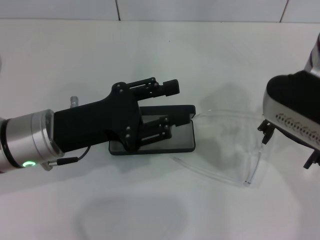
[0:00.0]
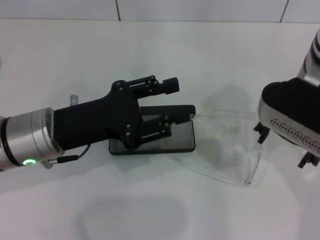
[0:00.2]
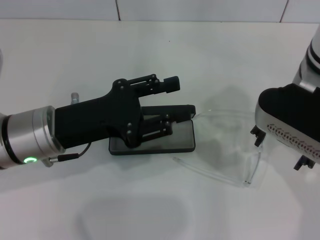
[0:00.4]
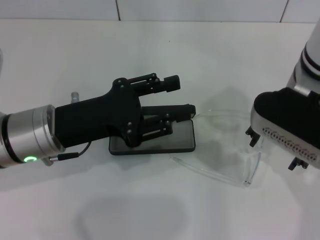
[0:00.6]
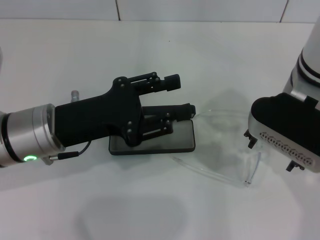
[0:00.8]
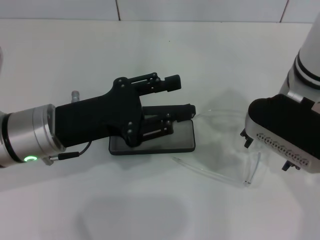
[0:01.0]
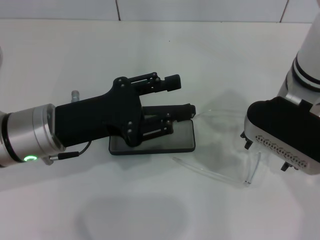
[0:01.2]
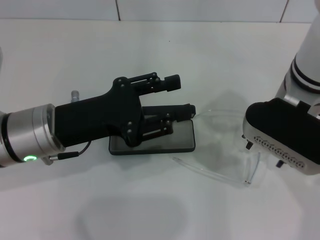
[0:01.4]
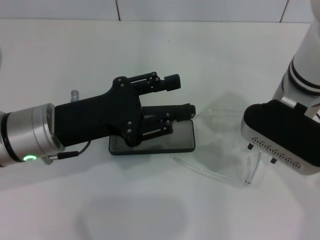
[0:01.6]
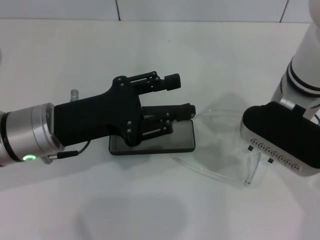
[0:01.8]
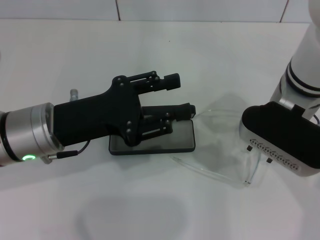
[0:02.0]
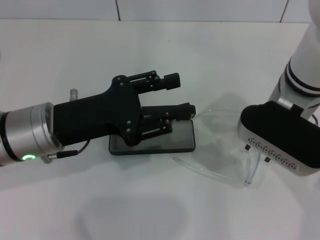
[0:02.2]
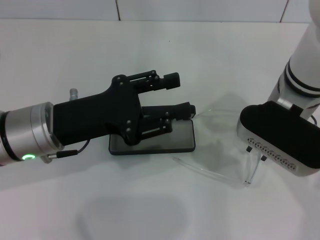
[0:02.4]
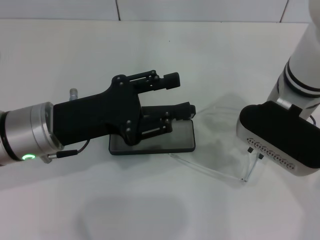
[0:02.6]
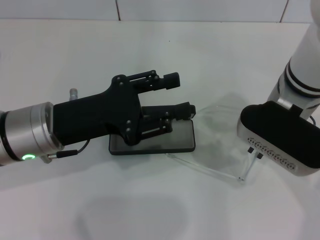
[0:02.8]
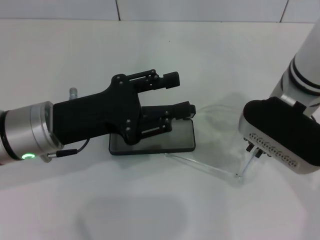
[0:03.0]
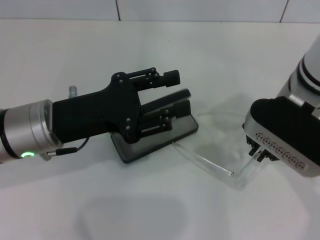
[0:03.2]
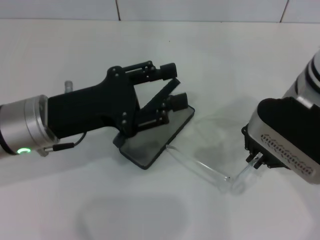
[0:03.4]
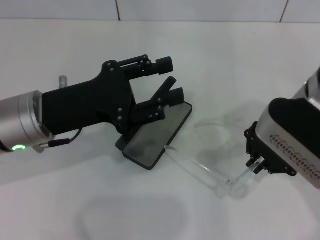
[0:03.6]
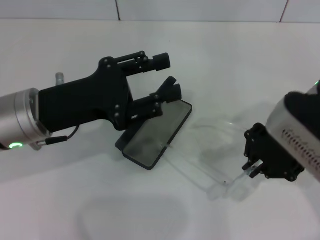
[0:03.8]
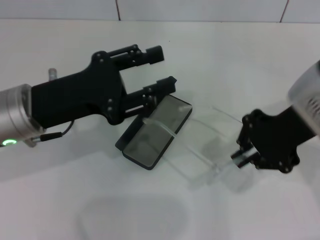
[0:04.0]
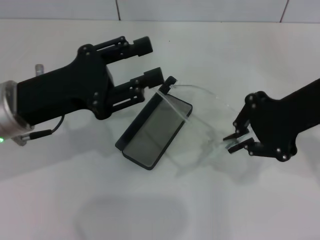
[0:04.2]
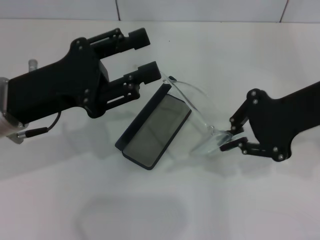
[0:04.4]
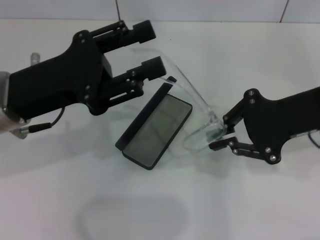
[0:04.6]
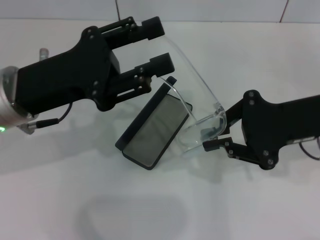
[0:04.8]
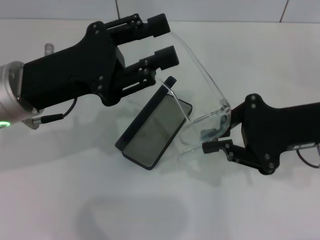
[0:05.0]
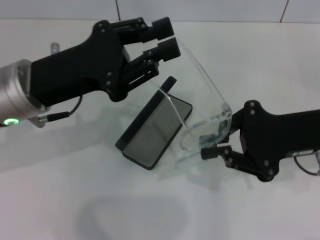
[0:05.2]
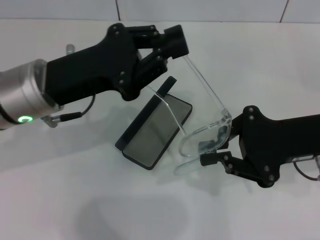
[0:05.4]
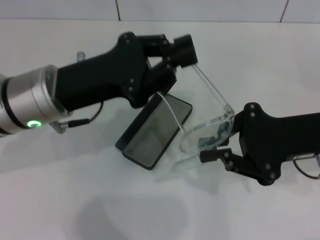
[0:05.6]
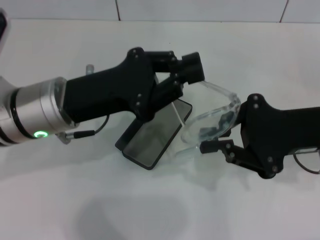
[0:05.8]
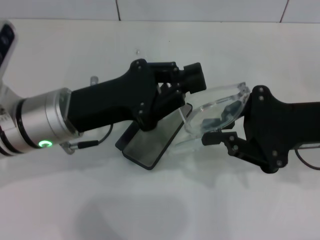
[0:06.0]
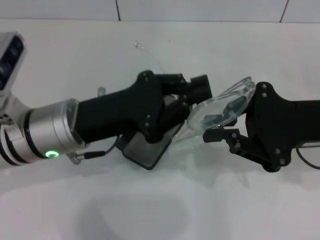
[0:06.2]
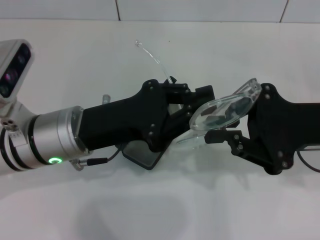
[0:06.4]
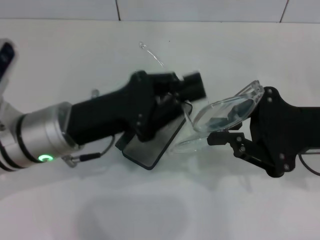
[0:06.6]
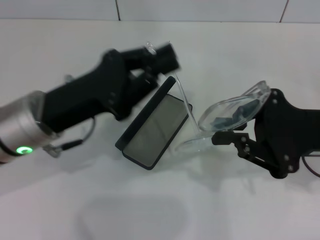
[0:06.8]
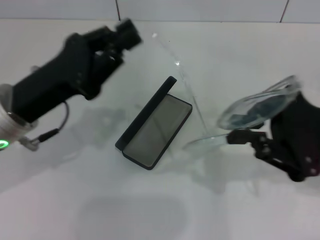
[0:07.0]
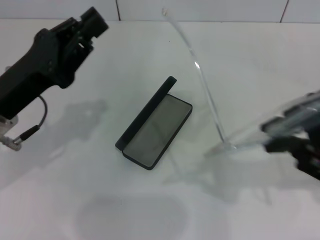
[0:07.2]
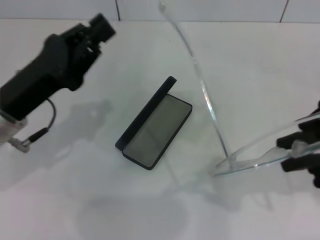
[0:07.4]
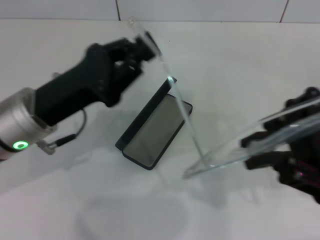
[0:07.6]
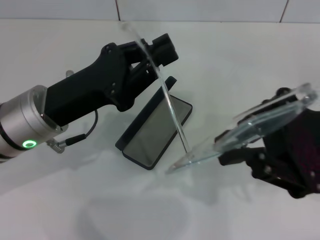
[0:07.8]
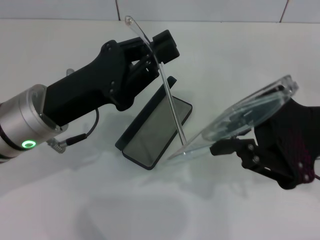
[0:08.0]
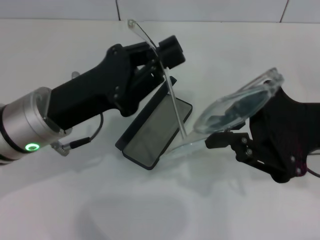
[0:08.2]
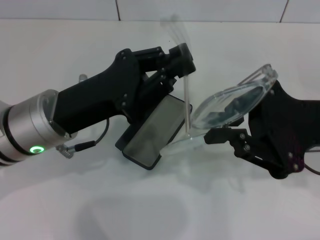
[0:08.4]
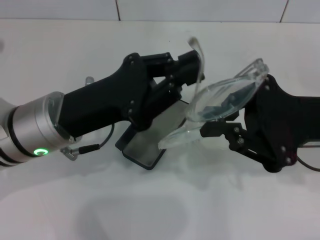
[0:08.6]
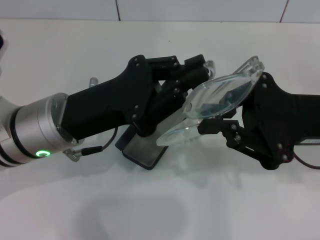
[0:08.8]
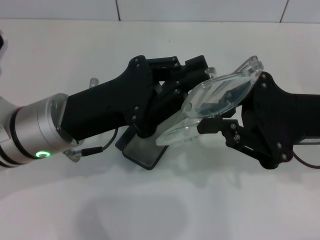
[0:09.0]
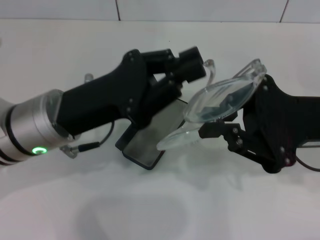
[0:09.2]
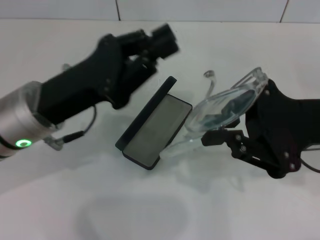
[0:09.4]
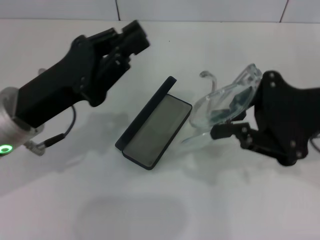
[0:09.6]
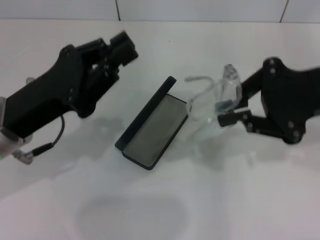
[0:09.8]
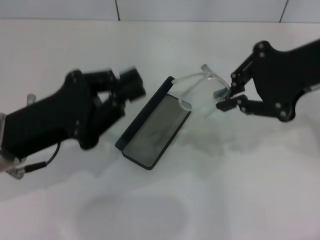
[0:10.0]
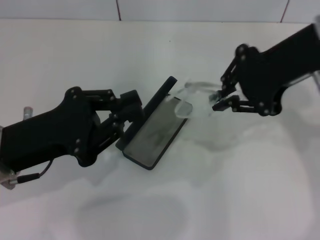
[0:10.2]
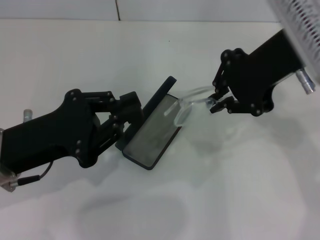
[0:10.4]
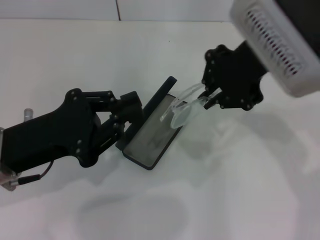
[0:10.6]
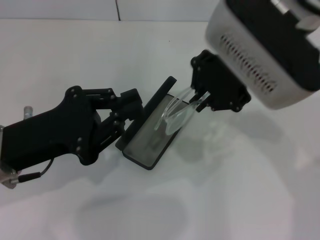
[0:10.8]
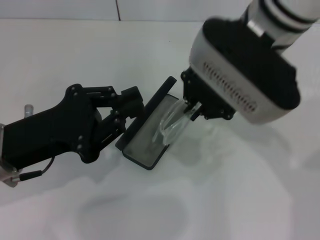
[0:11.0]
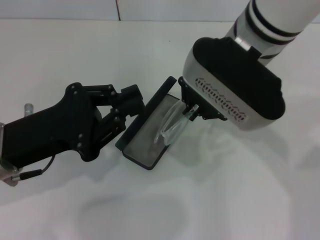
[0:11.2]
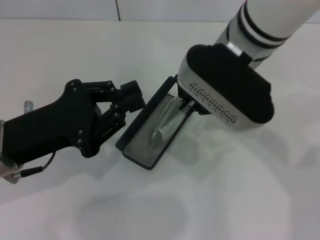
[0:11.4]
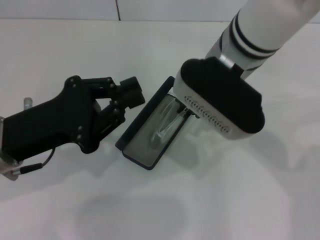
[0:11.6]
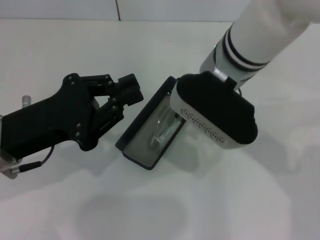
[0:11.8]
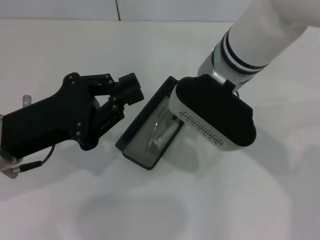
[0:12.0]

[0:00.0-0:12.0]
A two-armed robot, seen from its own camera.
Step, 0:00.0 to 0:02.6: Grab the eyeglass frame with your right hand.
Step, 0:02.8 to 0:09.0: Fold the frame with your left hand.
0:00.0 to 0:01.6: The right gripper moves about 5 cm.
0:01.6 to 0:03.0: The right gripper closes its fingers.
0:03.0 to 0:04.4: The right gripper shifts some 10 cm to the right.
0:04.4 to 0:06.0: The left gripper heads to the right, covering roughly 5 cm, and closes. The right gripper travels downward by approximately 5 cm.
0:09.0 to 0:10.4: The right gripper is displaced upward, to the left and forward by about 15 cm, while the left gripper is displaced to the left by approximately 5 cm.
0:10.4 to 0:12.0: The right gripper goes some 10 cm to the left and downward.

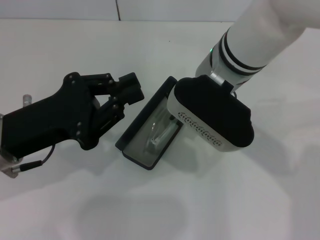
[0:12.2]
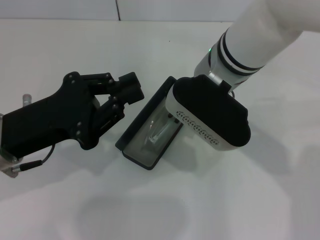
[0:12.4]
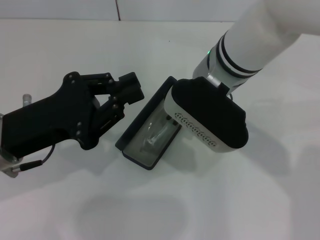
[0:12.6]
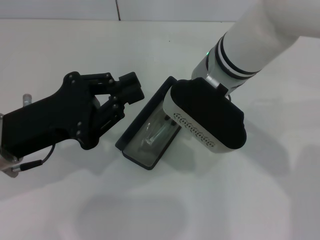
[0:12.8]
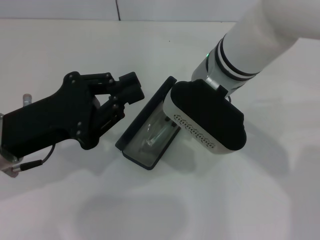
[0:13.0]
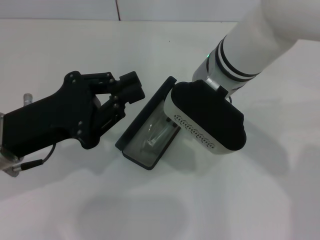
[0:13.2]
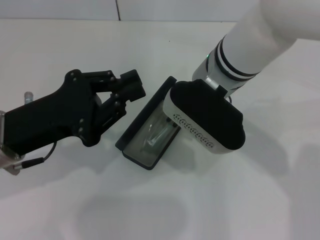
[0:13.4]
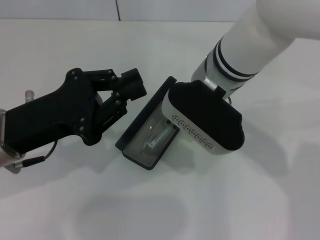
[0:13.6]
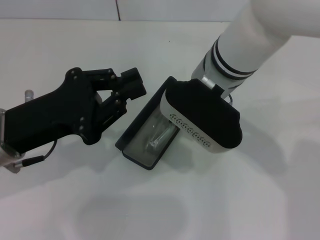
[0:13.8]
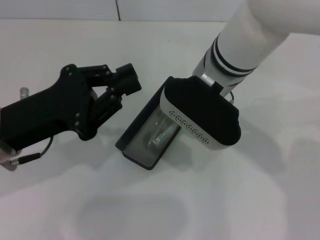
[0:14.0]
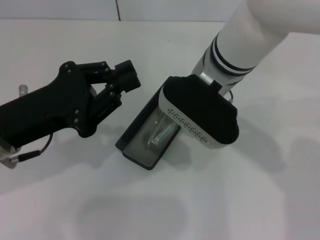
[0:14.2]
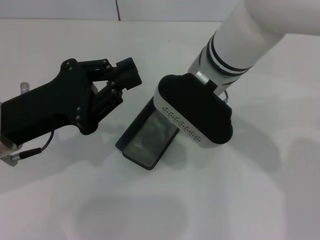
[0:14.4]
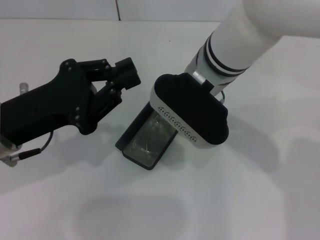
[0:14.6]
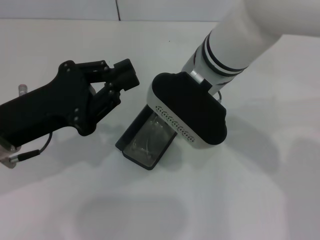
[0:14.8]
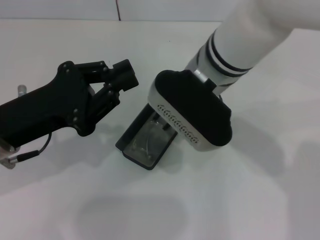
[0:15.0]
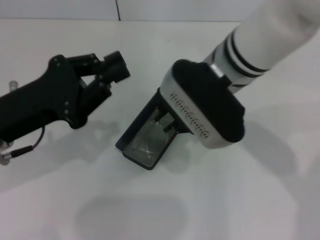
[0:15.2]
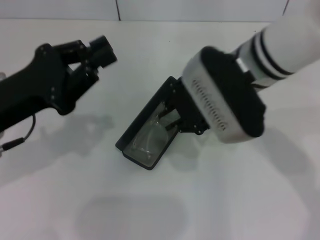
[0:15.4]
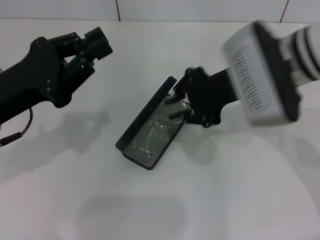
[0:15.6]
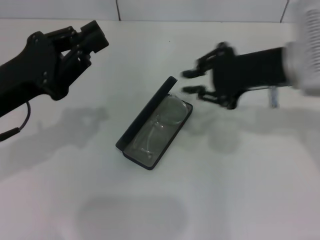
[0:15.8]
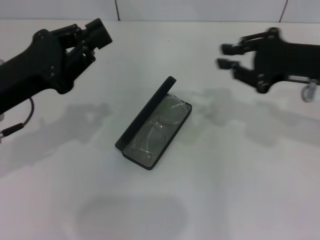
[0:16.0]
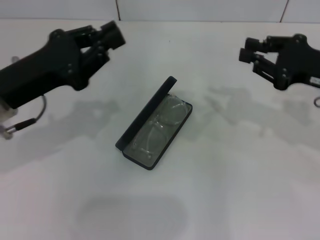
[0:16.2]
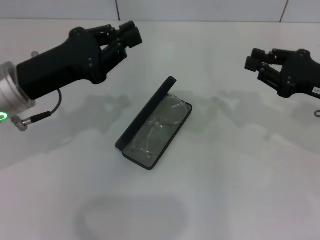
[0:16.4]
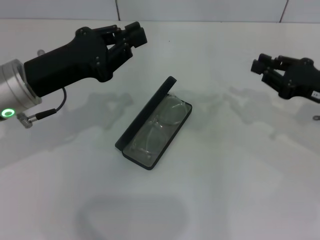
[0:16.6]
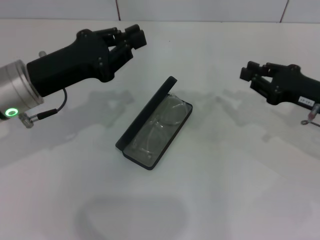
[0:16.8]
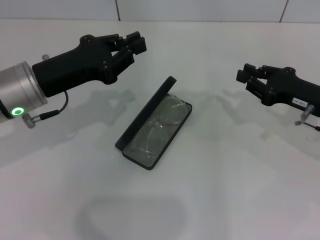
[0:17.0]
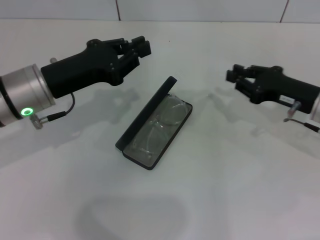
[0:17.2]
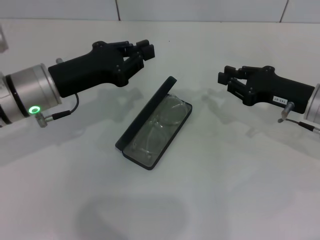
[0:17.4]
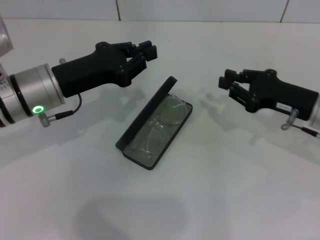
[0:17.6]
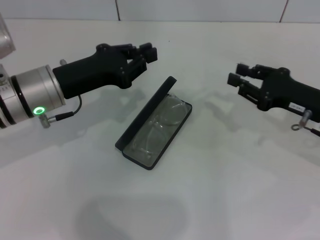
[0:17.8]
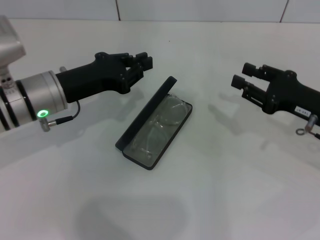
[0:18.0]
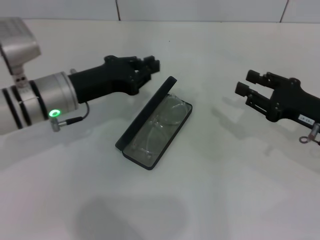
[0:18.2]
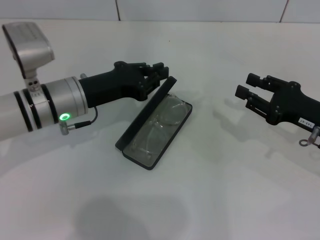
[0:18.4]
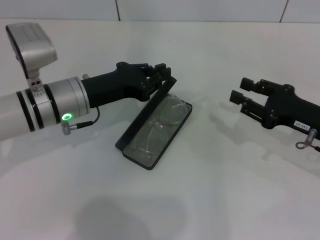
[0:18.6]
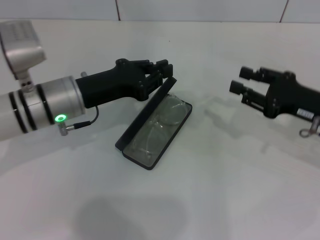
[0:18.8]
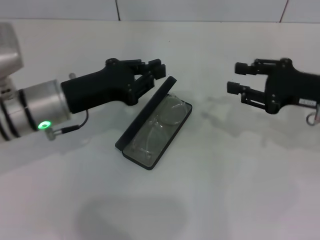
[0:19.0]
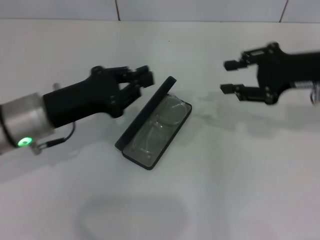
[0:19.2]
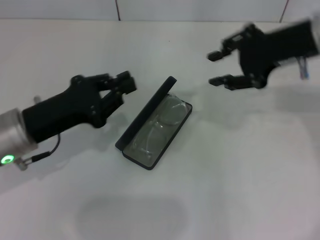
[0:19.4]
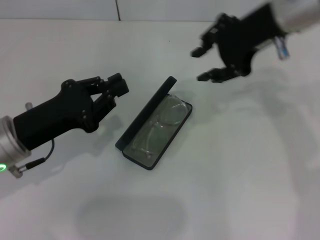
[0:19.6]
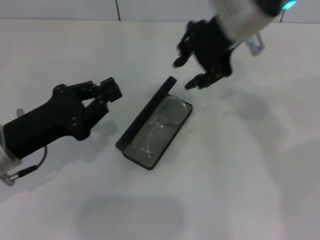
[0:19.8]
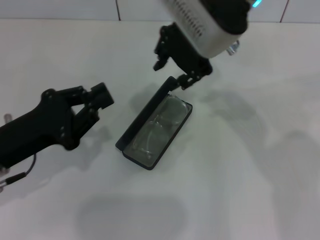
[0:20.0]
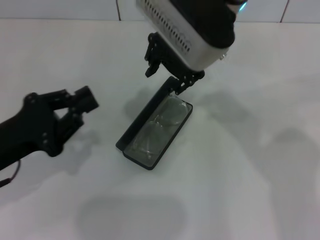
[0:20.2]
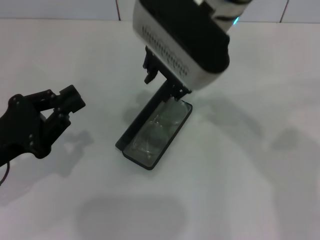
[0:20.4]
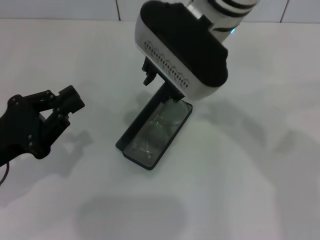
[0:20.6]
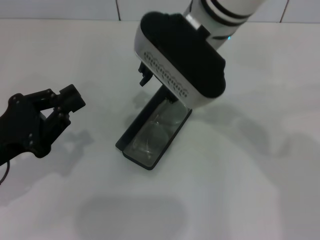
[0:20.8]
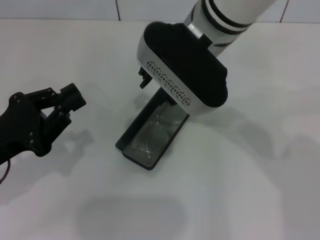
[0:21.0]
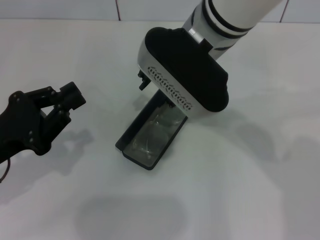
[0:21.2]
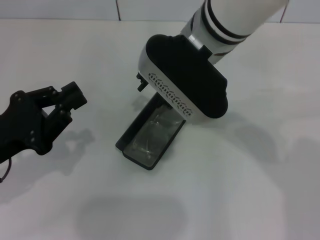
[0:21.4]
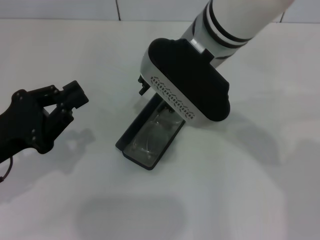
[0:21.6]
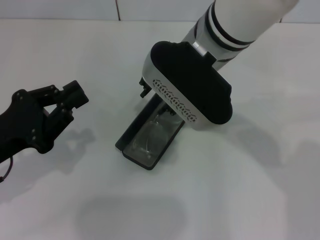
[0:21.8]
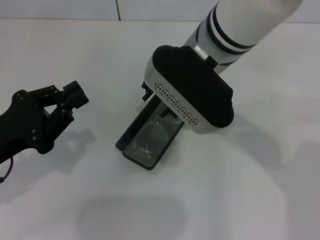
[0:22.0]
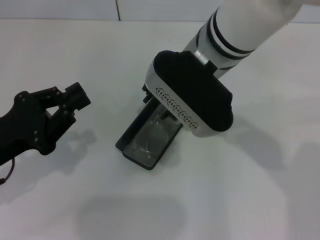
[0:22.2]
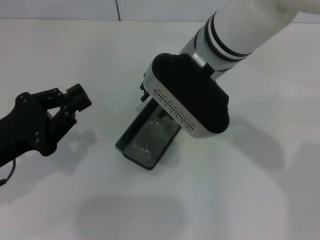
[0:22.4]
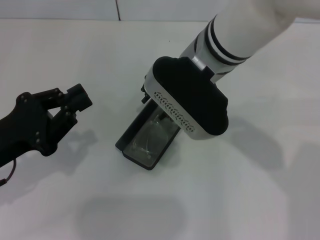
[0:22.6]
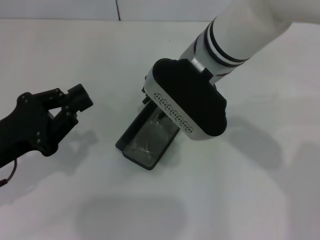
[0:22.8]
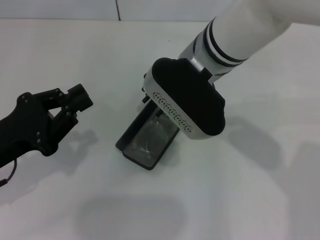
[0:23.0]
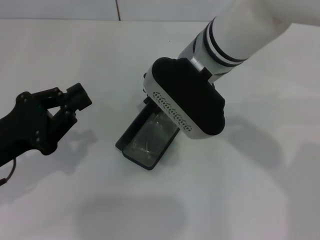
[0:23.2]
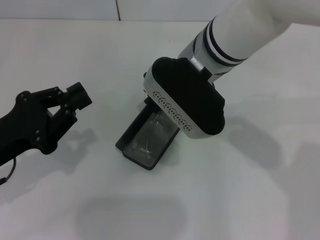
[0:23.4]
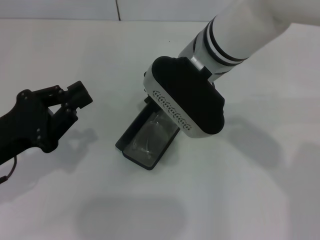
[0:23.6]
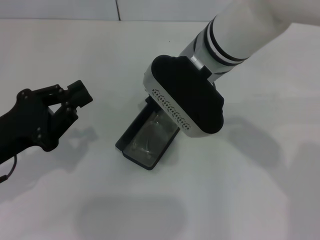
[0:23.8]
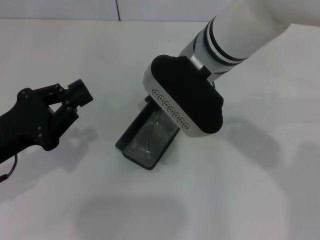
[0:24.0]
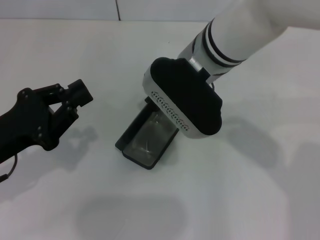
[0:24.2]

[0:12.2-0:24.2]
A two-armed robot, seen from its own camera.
Step, 0:12.2 to 0:14.4: Put the glasses into the case with your right hand.
0:12.2 to 0:15.2: The grippers stay close to where they were, moving slightly.
0:15.2 to 0:16.6: The left gripper travels forward by approximately 5 cm. The right gripper moves to the right and downward, approximately 25 cm.
0:16.6 to 0:18.2: The left gripper changes place by approximately 5 cm.
0:18.2 to 0:19.8: The left gripper heads backward and to the left, covering about 10 cm; the right gripper moves upward, to the left and forward, about 30 cm.
0:19.8 to 0:21.2: The right gripper goes approximately 5 cm to the left.
0:21.2 to 0:22.6: The grippers move only a little.
0:22.6 to 0:24.2: The two grippers keep their place.
